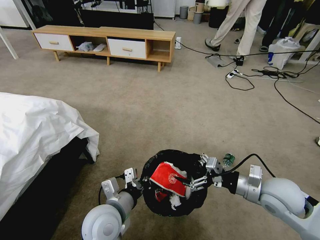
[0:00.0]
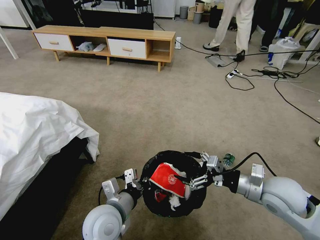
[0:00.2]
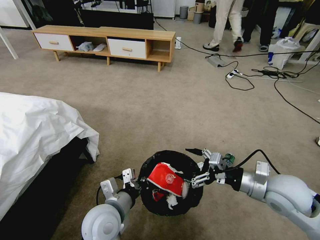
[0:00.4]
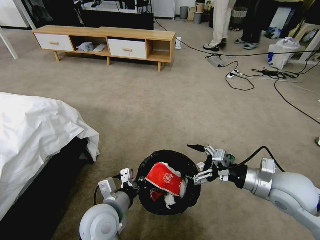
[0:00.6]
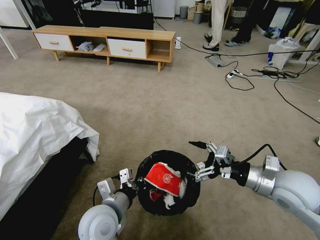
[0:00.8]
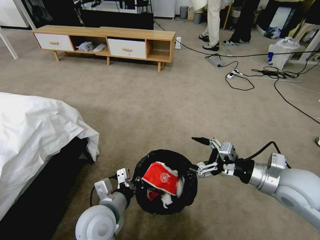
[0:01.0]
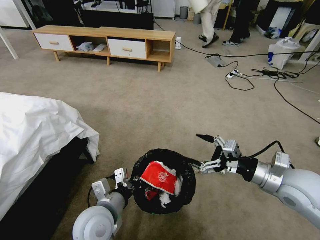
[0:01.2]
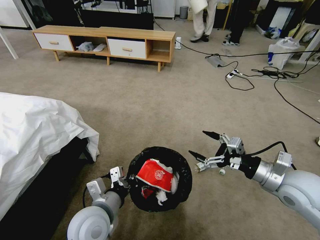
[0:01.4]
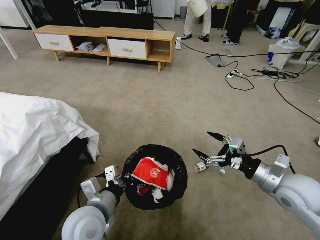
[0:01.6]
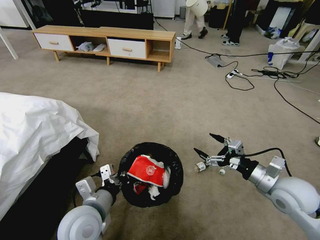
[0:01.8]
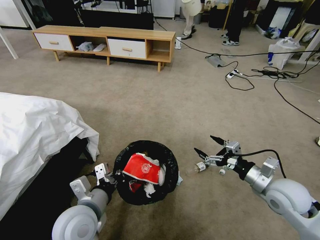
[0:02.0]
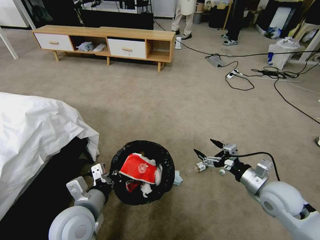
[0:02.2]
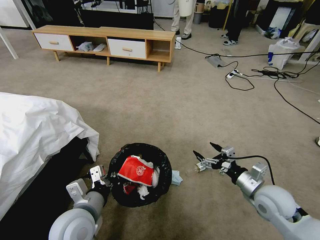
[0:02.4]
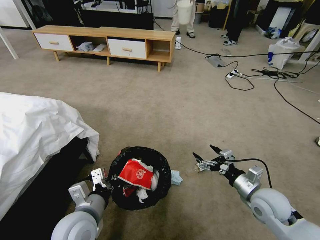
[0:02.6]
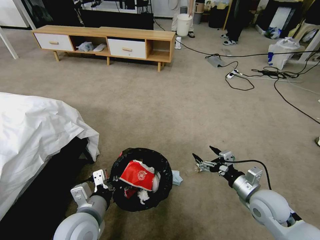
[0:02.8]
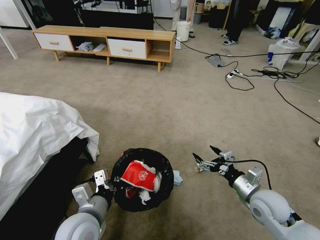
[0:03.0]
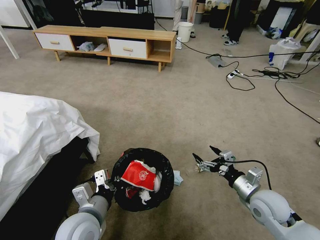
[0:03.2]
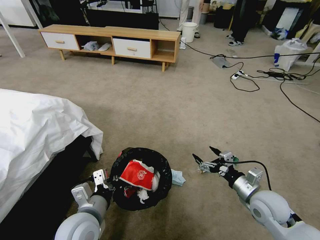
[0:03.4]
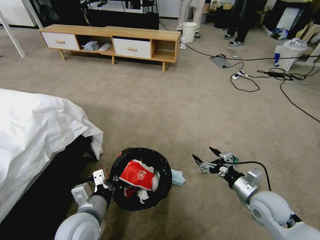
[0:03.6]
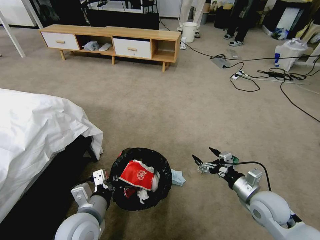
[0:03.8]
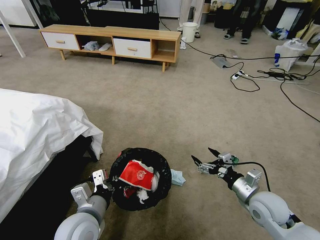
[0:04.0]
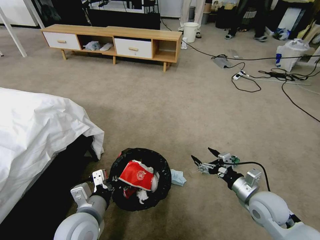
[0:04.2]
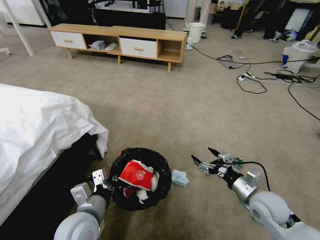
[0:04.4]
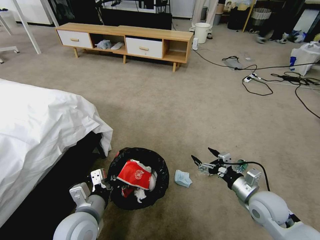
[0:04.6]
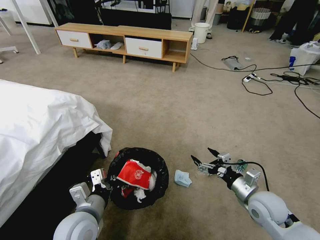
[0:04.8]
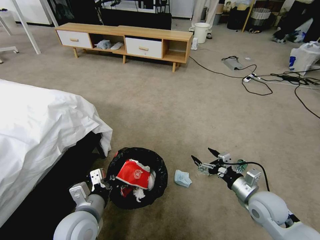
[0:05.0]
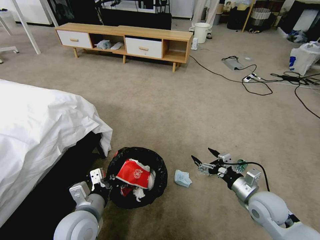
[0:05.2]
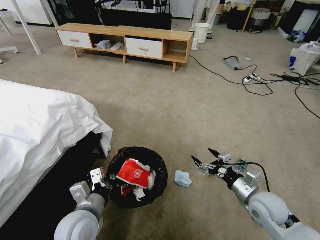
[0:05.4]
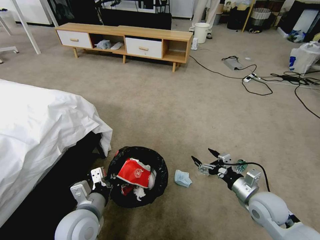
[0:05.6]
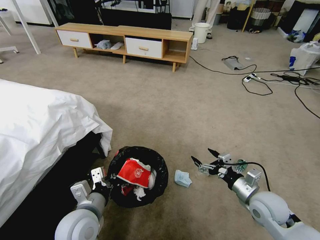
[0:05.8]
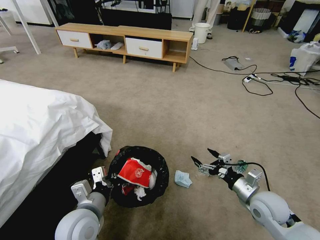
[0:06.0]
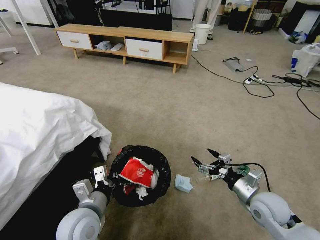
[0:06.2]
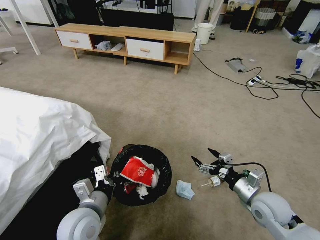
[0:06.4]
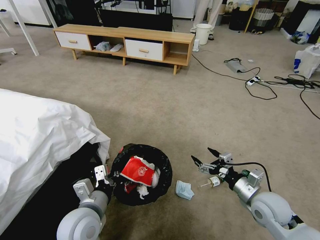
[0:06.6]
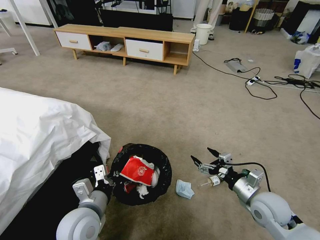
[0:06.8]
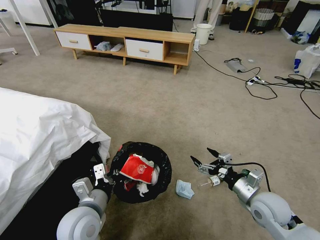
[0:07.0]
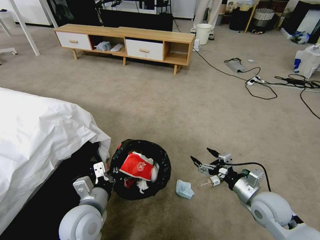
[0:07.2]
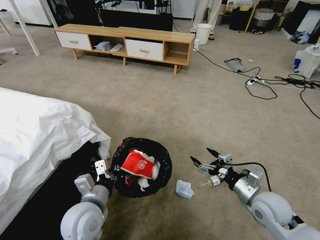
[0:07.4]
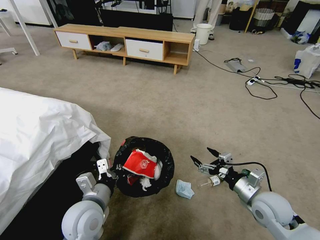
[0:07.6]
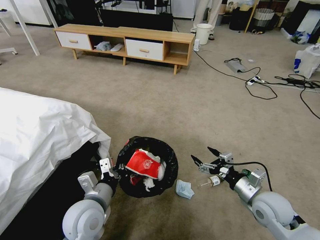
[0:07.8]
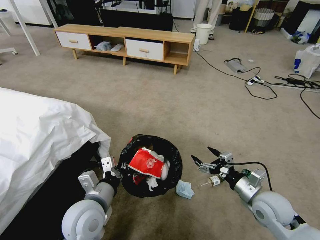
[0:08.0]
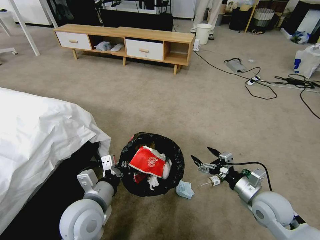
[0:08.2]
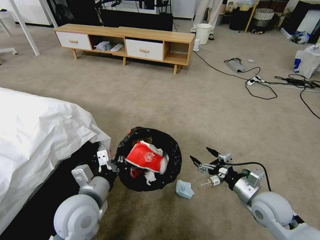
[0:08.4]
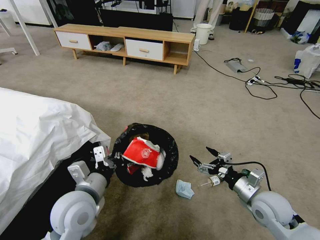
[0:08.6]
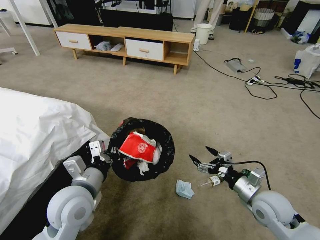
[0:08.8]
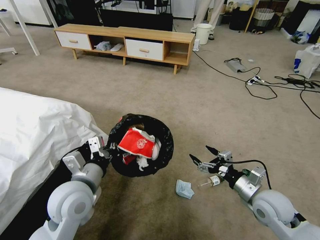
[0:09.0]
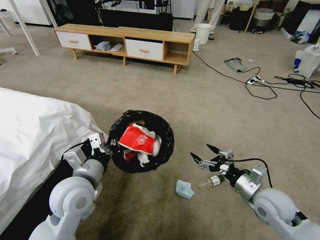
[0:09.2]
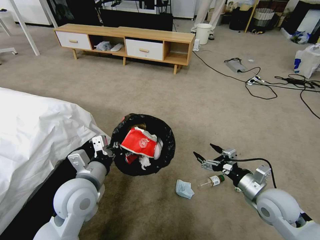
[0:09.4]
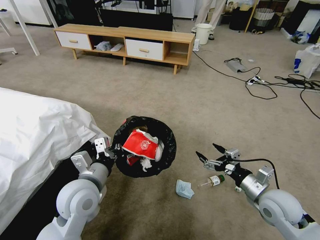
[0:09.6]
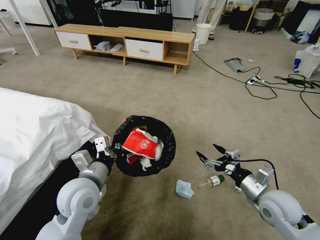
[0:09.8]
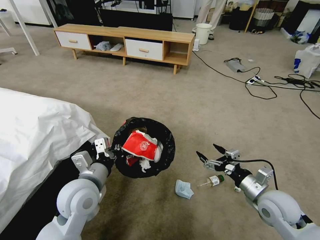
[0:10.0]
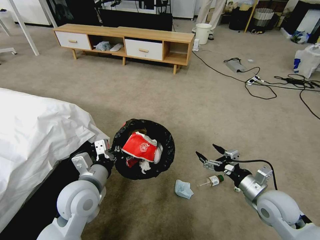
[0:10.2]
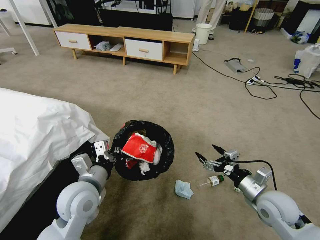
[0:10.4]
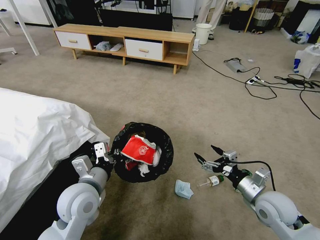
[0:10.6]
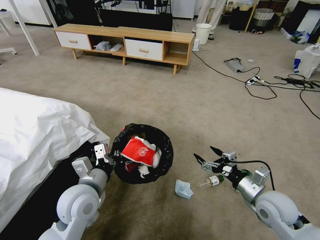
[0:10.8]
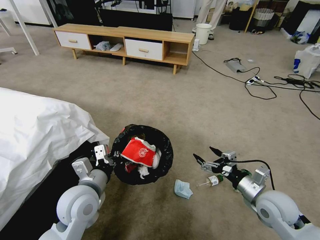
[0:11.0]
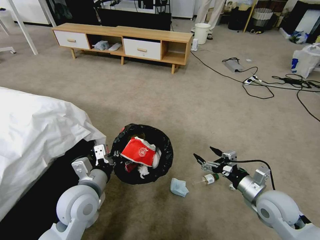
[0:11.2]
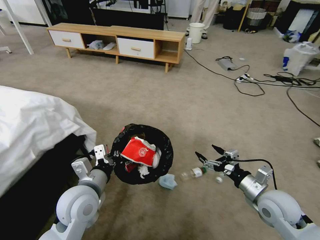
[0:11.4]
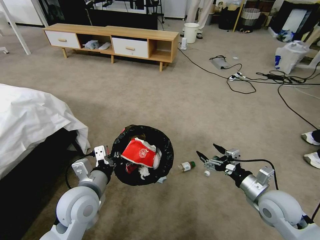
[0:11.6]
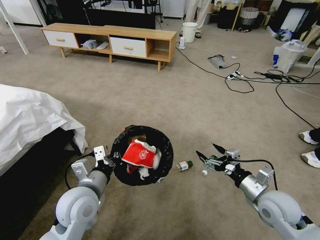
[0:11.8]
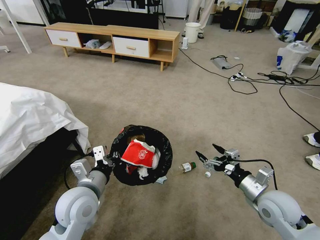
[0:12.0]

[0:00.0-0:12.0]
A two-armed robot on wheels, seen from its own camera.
Task of the whole recording: Pick up the trash bin and place the garbage on the floor into it.
0:00.0 to 0:01.6: The grippers make only small movements.
0:01.6 to 0:03.0: The right gripper moves downward, roughly 10 cm.
0:04.4 to 0:06.0: The two grippers keep their place.
0:07.6 to 0:09.0: The left gripper is displaced upward by about 5 cm.
0:09.0 to 0:10.4: The grippers make only small movements.

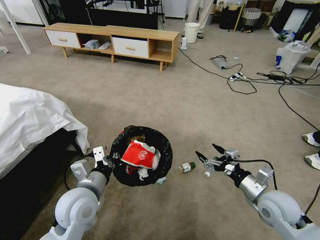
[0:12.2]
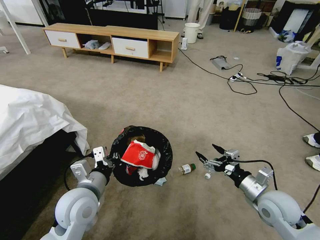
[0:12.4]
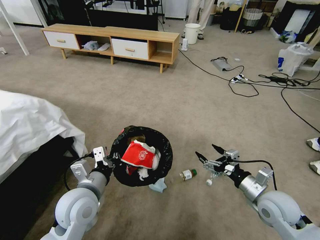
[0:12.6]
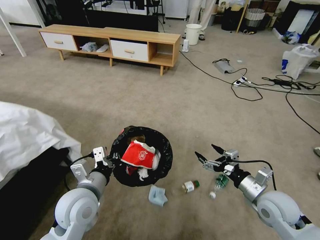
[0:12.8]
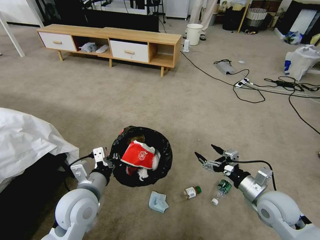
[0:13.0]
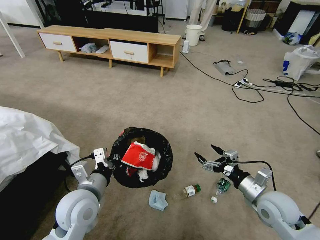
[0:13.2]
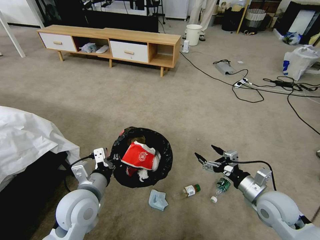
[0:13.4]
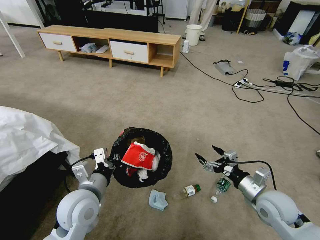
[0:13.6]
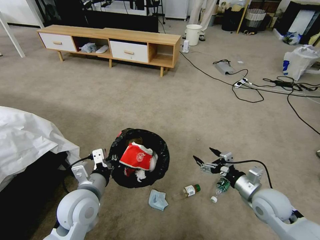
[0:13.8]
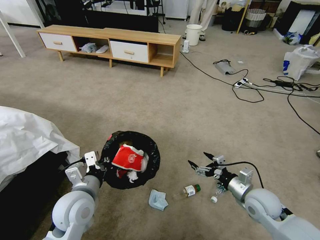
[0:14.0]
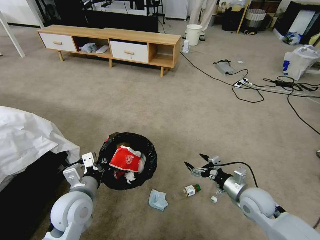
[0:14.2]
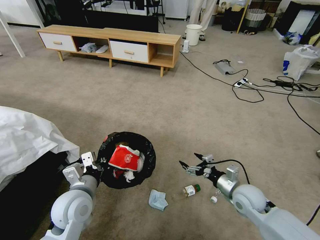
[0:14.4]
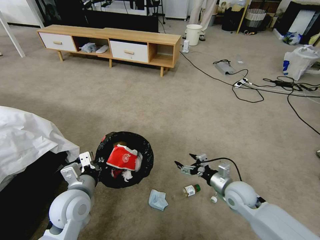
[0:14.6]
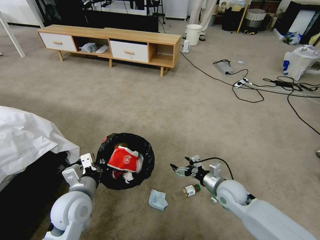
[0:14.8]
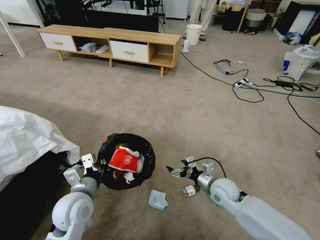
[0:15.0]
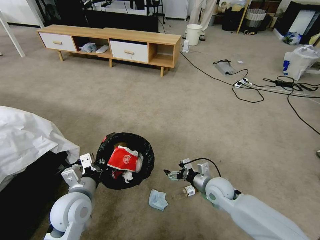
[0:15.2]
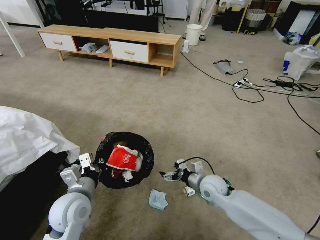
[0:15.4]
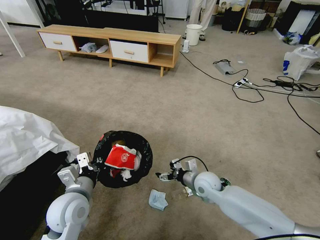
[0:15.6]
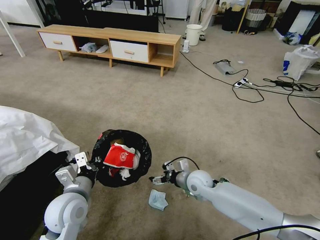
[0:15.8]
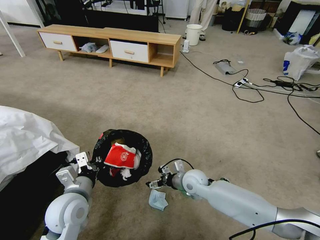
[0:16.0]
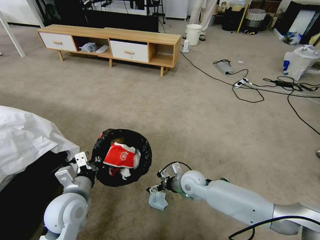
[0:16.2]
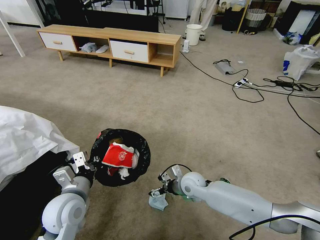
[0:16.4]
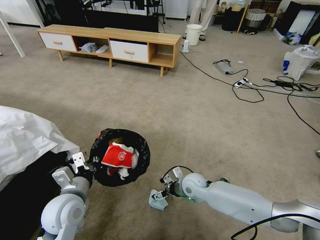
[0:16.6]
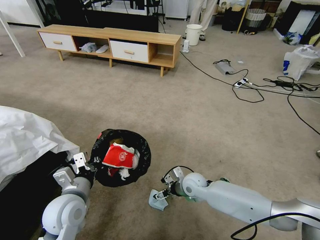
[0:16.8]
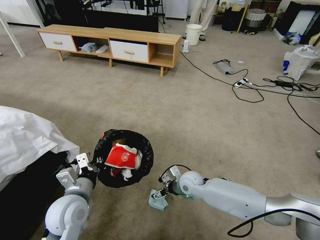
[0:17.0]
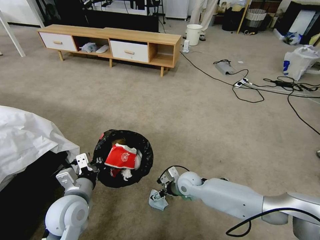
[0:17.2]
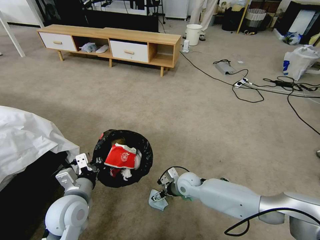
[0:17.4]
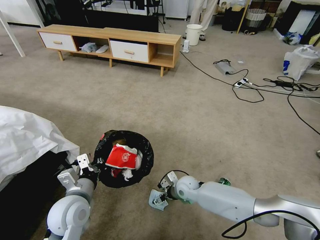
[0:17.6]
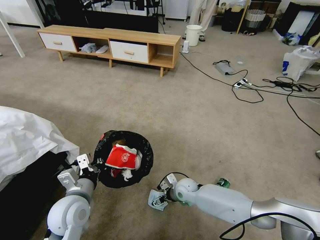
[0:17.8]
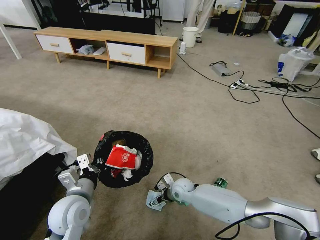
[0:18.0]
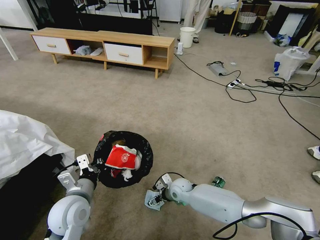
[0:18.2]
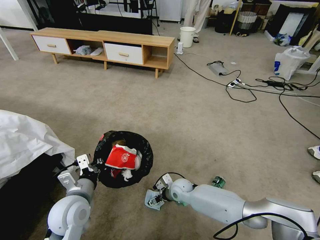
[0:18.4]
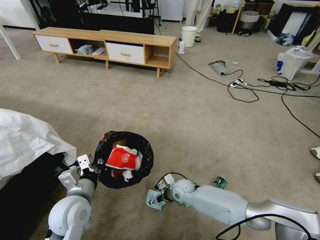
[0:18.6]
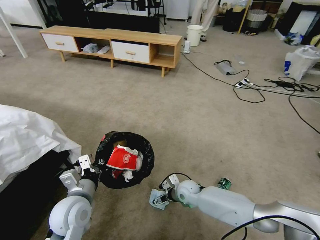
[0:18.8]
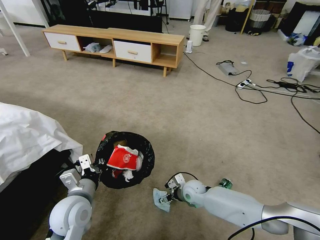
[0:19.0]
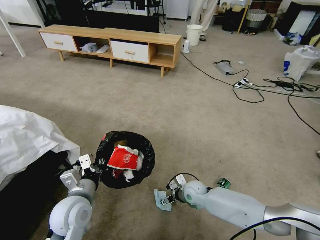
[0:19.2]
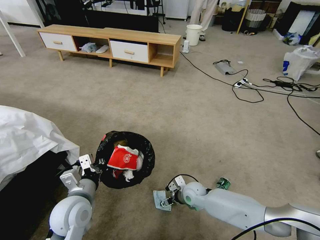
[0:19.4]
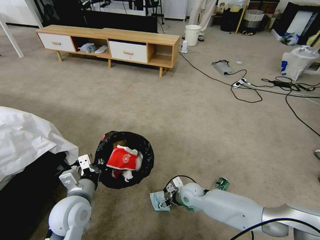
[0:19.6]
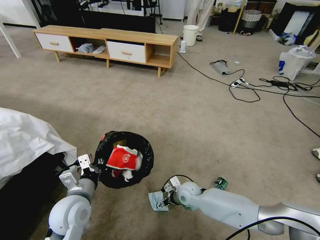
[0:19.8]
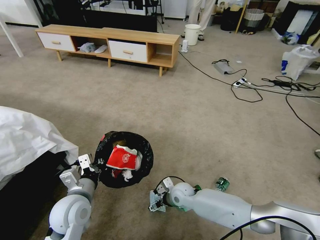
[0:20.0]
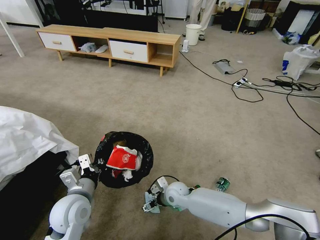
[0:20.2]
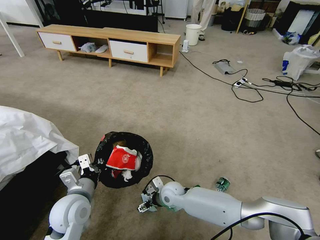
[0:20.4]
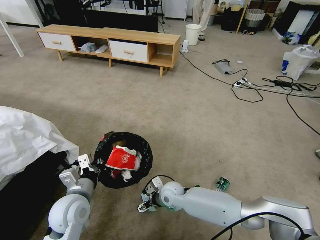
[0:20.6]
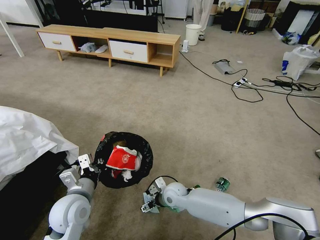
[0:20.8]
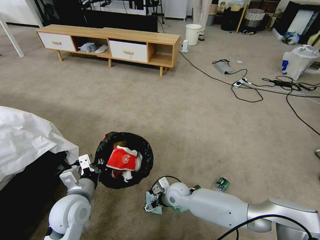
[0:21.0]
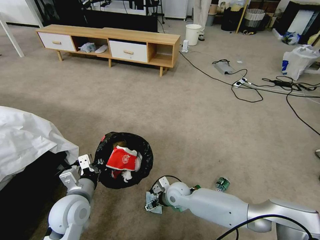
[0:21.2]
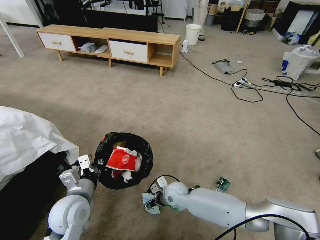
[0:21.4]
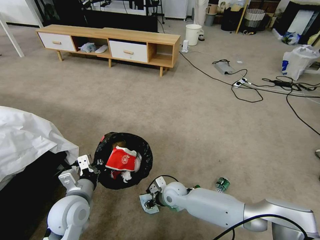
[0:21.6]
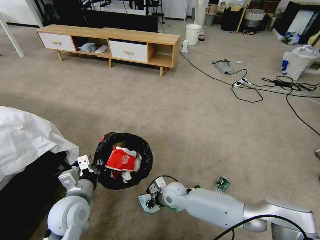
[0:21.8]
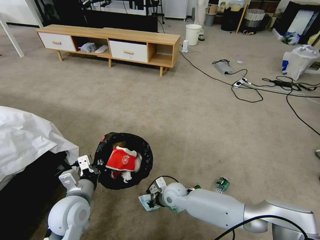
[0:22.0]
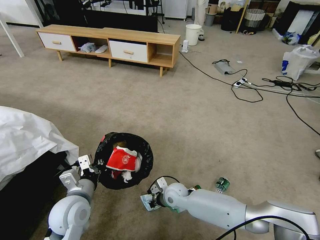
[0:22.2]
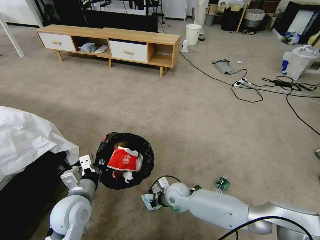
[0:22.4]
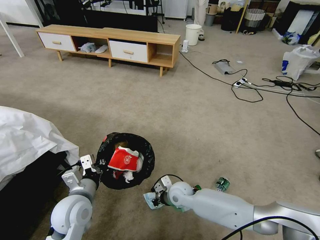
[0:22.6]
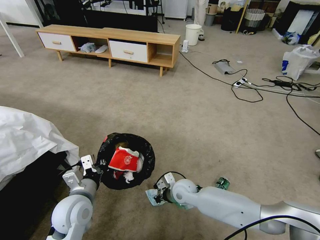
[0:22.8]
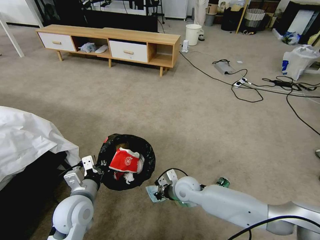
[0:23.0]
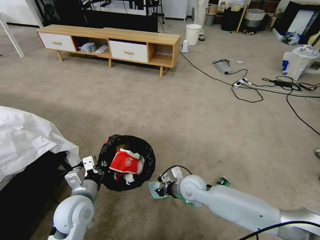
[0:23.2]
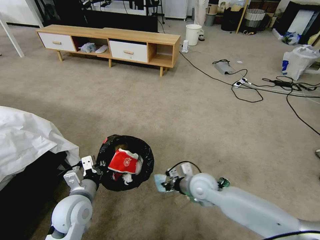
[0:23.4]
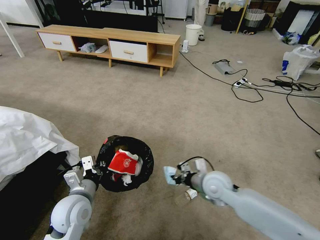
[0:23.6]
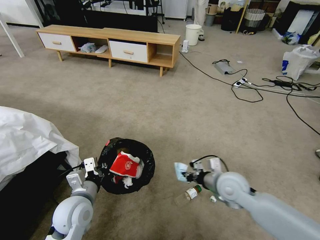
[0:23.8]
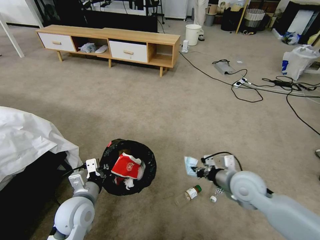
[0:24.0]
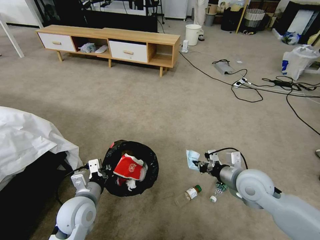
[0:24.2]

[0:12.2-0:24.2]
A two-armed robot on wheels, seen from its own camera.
Task of the whole recording: Pick up the trash bin and place the garbage on the floor into it.
0:13.8 to 0:15.2: The right gripper moves to the left, forward and downward, some 15 cm.
0:15.2 to 0:16.6: The right gripper moves to the left, approximately 10 cm.
0:16.6 to 0:18.2: The right gripper is displaced downward by about 5 cm.
0:21.2 to 0:22.6: The right gripper closes up.
0:22.6 to 0:24.2: The right gripper is displaced to the right and upward by approximately 25 cm.
